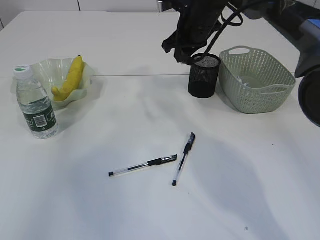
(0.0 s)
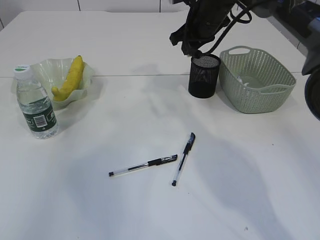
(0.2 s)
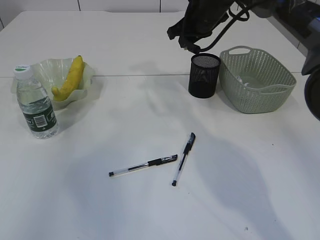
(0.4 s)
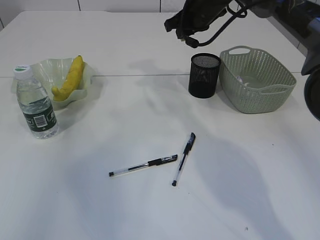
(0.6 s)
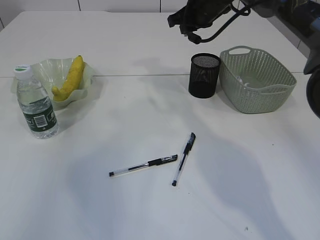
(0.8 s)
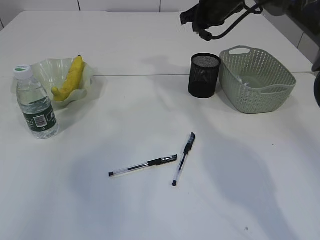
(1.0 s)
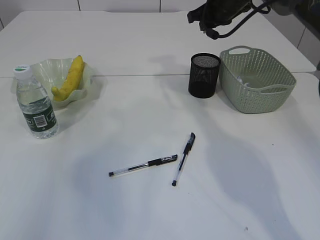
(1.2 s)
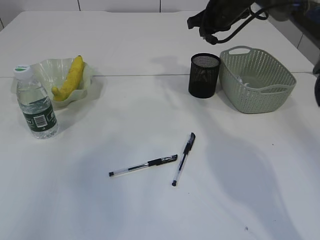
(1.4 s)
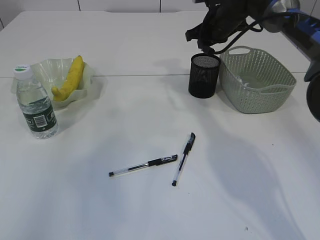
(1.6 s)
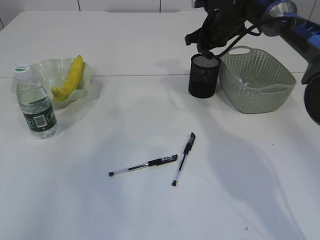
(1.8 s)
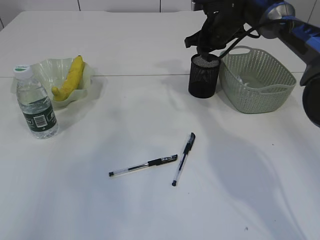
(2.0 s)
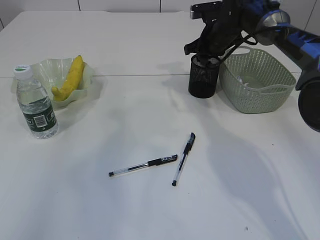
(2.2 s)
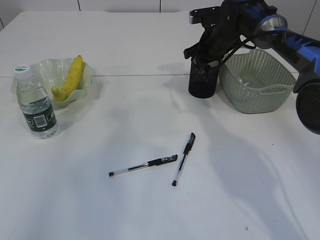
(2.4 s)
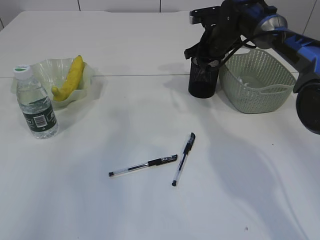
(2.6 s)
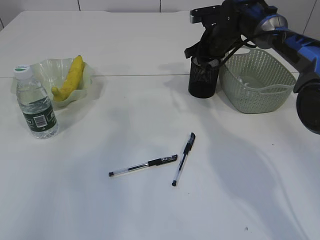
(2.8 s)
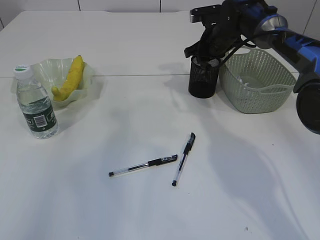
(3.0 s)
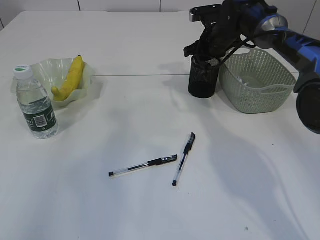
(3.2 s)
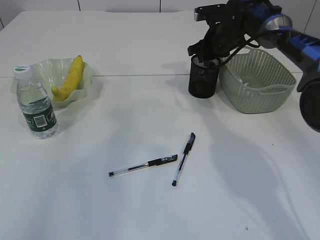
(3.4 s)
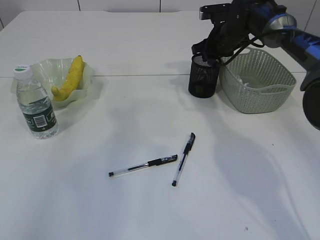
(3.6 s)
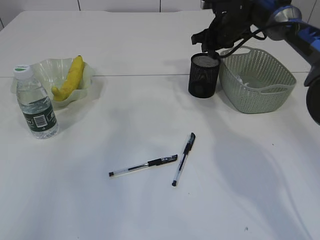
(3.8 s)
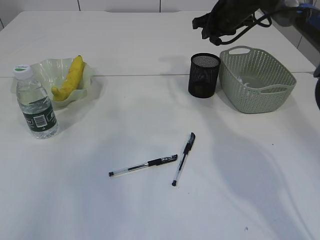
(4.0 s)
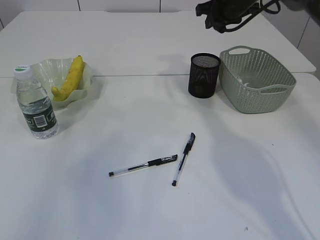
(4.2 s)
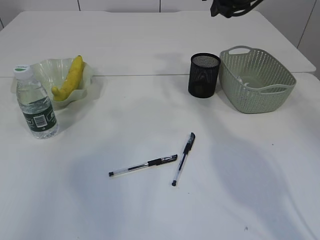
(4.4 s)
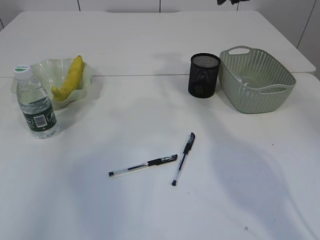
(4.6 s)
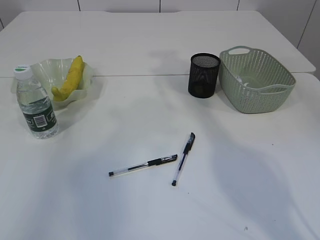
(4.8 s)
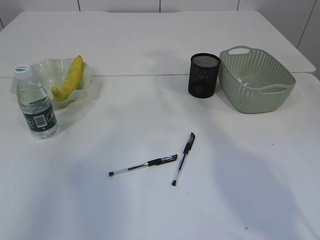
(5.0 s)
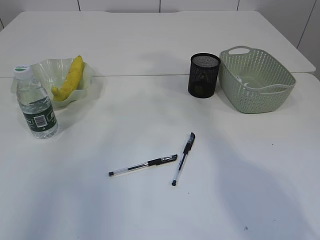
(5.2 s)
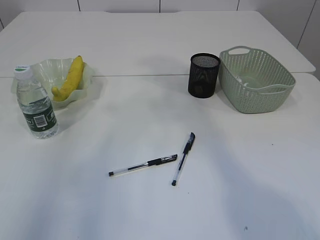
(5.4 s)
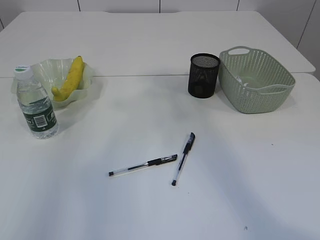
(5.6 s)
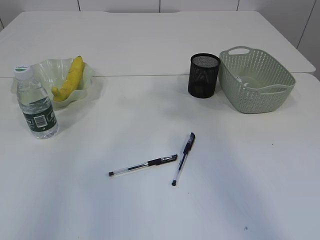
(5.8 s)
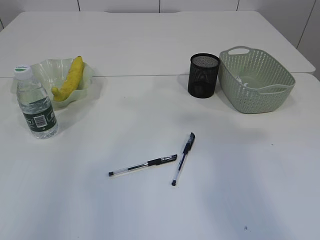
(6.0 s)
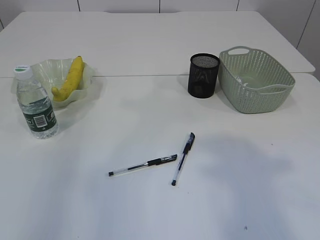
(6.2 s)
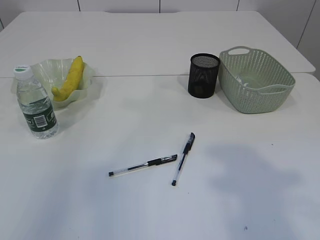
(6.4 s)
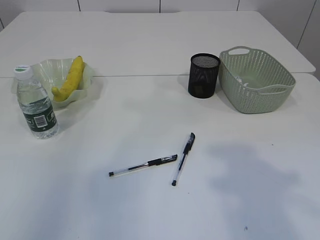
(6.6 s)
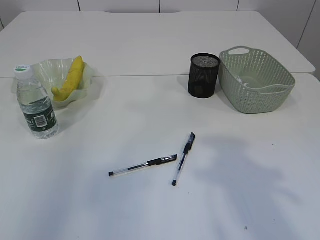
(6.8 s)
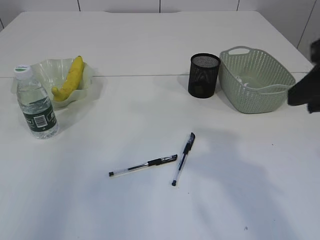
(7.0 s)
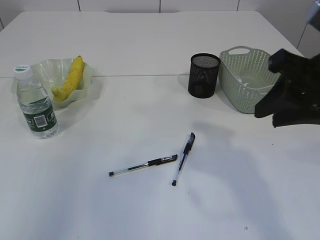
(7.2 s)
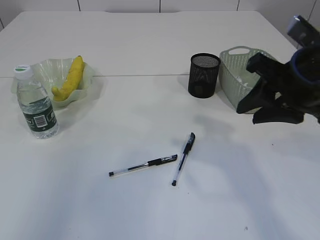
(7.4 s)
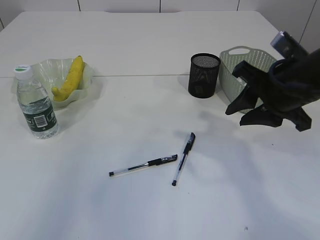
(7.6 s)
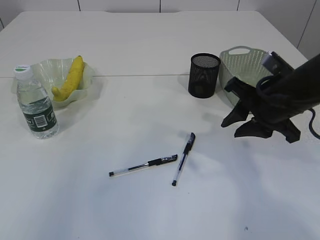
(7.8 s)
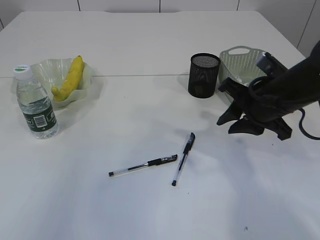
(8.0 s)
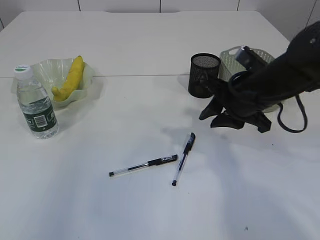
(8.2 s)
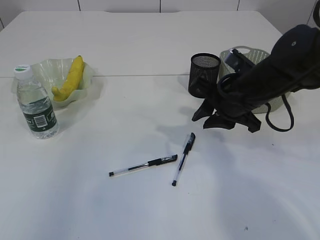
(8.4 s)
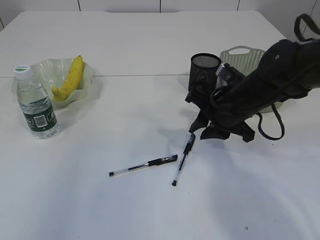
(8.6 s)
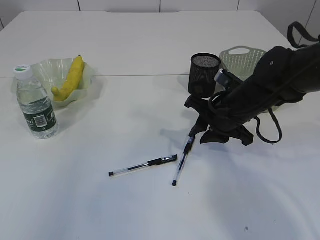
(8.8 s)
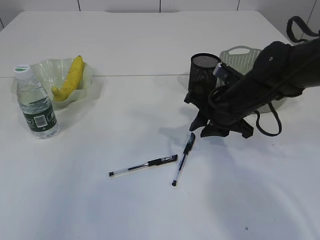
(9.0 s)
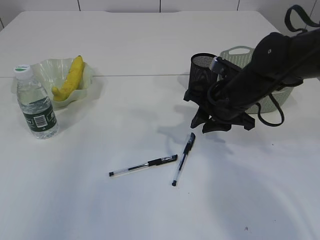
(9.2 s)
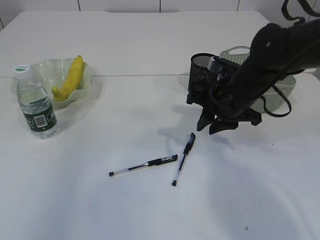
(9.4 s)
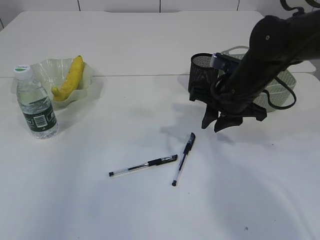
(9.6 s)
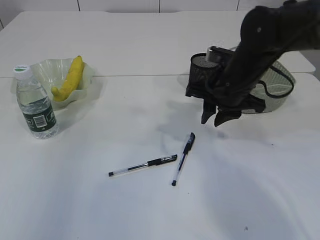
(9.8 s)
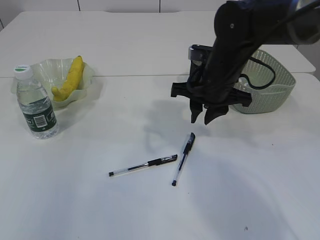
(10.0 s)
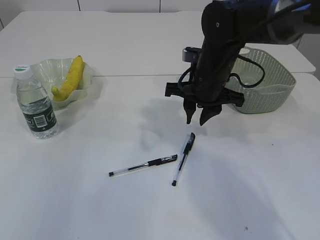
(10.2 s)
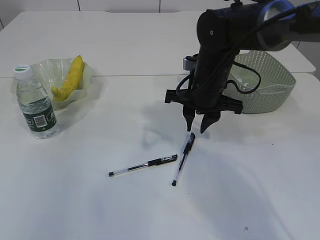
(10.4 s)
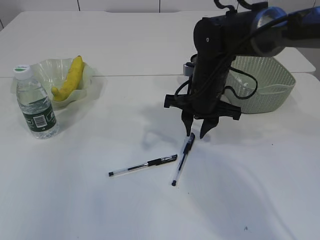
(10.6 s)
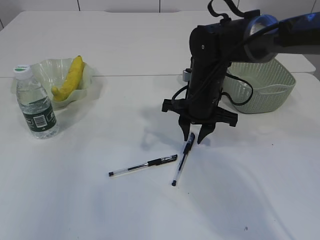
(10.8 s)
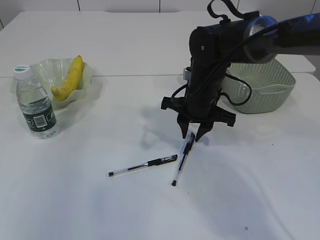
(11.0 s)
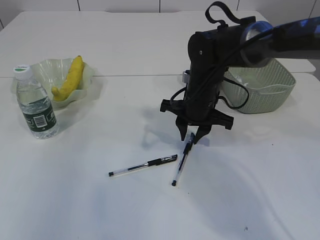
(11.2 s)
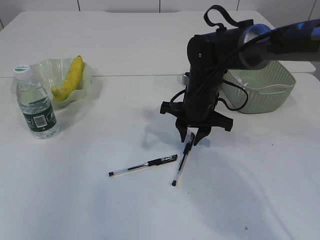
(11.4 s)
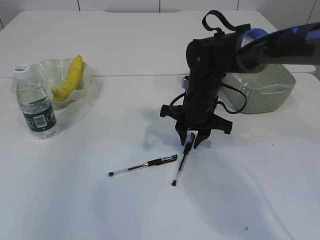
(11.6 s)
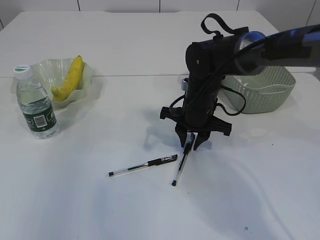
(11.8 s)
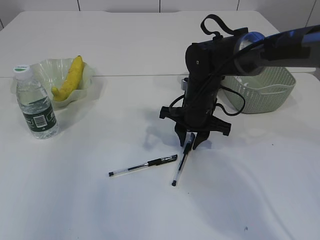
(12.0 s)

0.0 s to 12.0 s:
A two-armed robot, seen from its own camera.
Step, 0.0 to 3.8 s: Place the eraser into the pen holder.
0.0 to 1.6 s: The right gripper travels to the right and forward by roughly 10 cm.
1.6 to 3.0 s: The grippers stay close to where they were, moving slightly.
3.0 to 4.4 s: The right gripper moves upward, about 15 cm.
4.4 to 6.0 s: The right gripper heads backward and upward, covering some 40 cm.
6.0 to 7.6 s: The right gripper goes about 30 cm downward and forward.
7.6 to 9.0 s: The right gripper heads downward, forward and to the left, covering roughly 10 cm.
9.0 to 10.4 s: The right gripper shifts by roughly 5 cm.
10.4 to 12.0 s: The right gripper moves downward, about 5 cm.

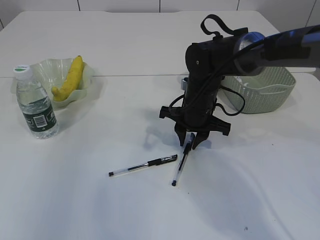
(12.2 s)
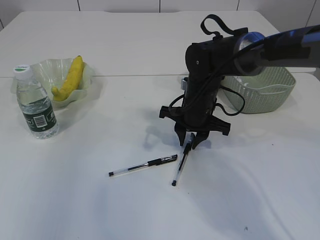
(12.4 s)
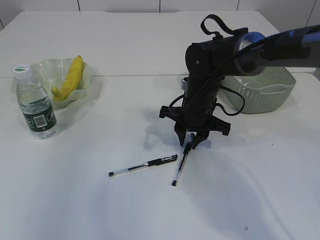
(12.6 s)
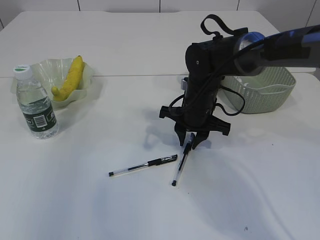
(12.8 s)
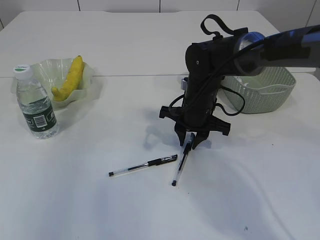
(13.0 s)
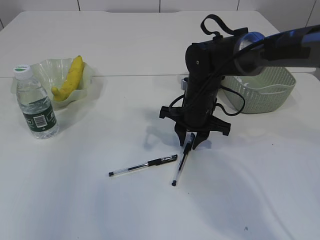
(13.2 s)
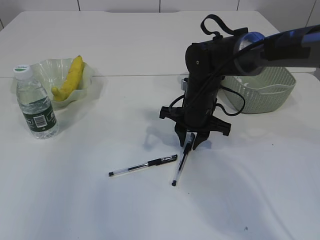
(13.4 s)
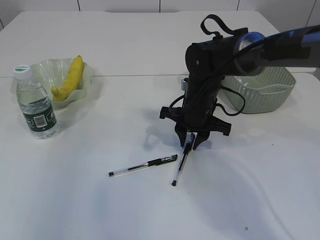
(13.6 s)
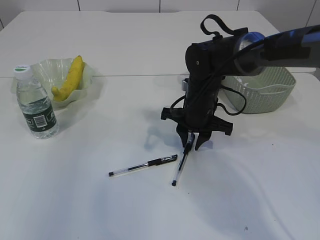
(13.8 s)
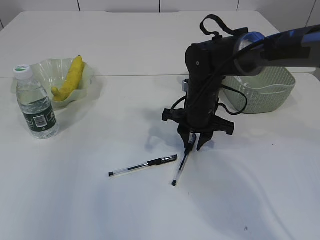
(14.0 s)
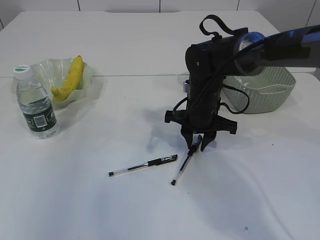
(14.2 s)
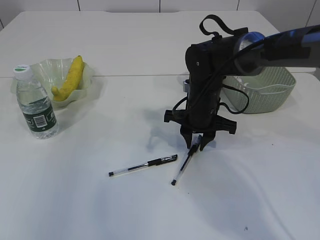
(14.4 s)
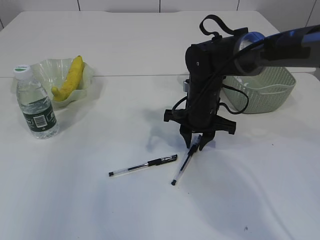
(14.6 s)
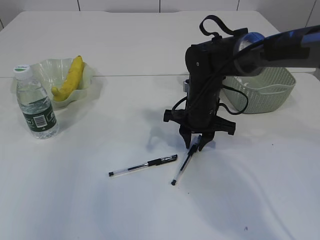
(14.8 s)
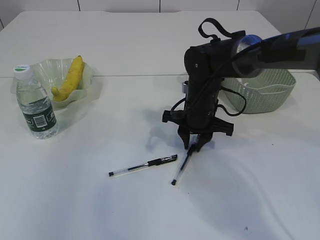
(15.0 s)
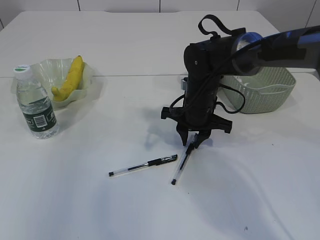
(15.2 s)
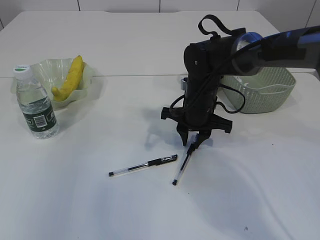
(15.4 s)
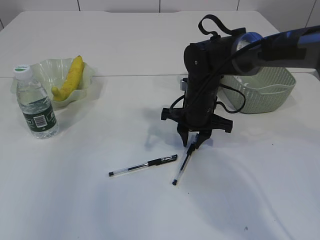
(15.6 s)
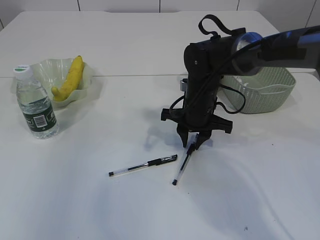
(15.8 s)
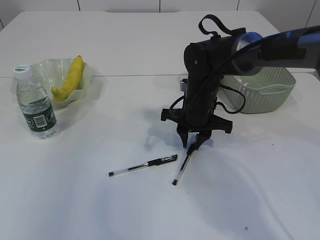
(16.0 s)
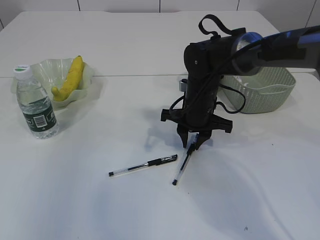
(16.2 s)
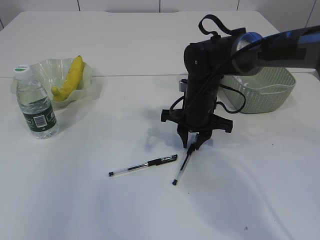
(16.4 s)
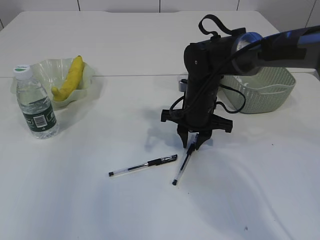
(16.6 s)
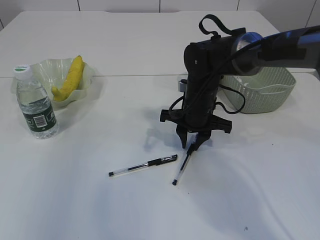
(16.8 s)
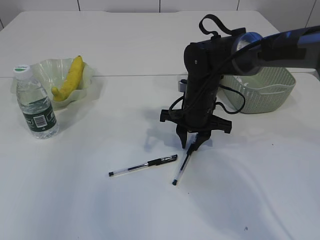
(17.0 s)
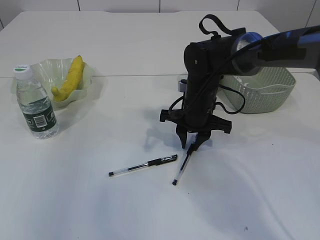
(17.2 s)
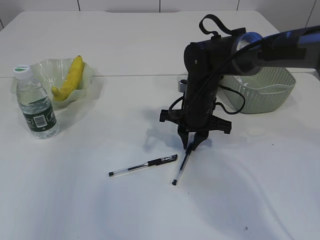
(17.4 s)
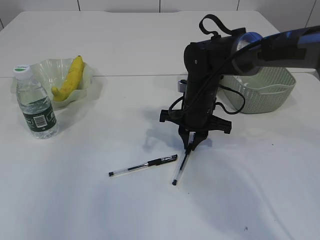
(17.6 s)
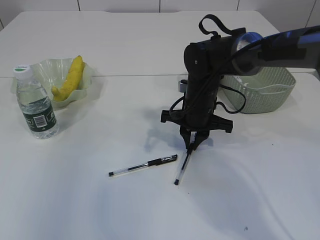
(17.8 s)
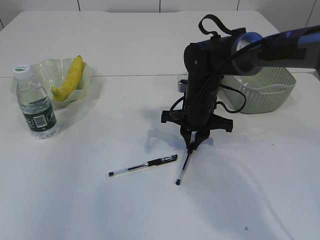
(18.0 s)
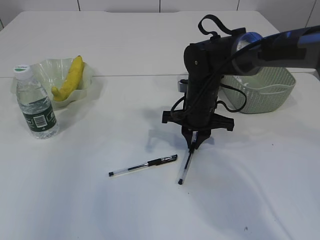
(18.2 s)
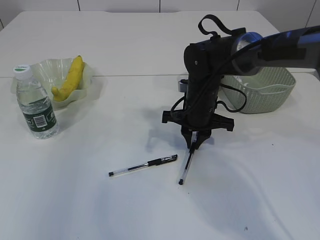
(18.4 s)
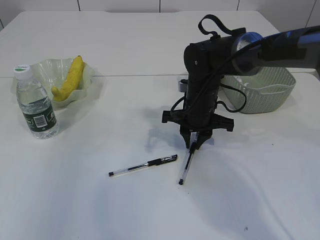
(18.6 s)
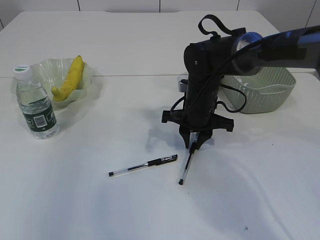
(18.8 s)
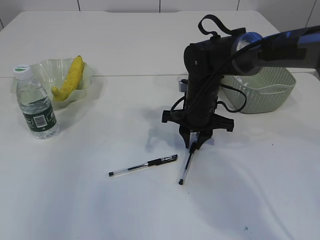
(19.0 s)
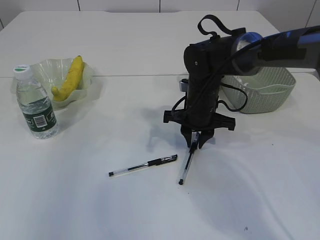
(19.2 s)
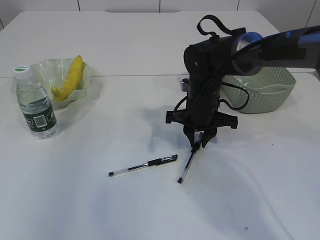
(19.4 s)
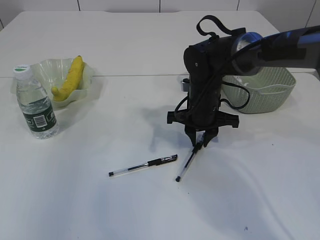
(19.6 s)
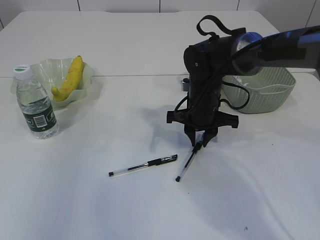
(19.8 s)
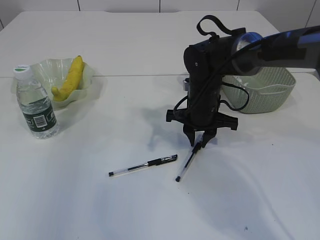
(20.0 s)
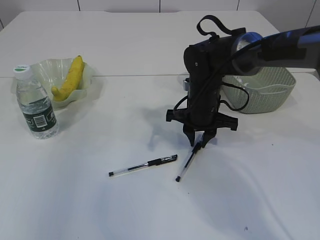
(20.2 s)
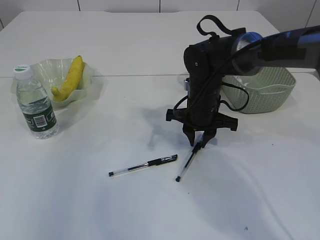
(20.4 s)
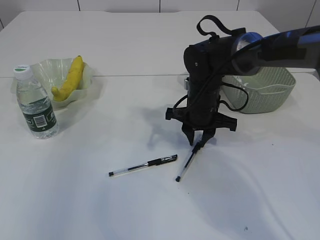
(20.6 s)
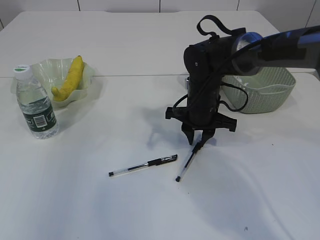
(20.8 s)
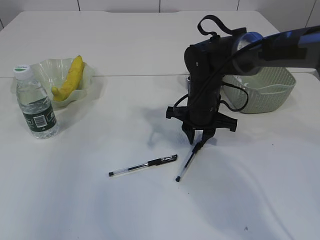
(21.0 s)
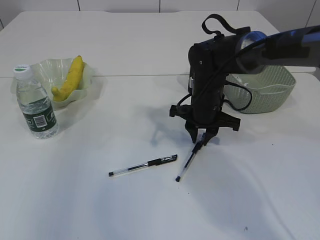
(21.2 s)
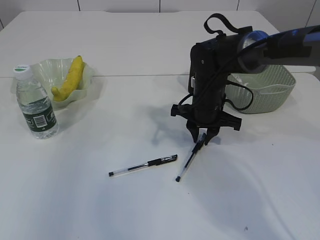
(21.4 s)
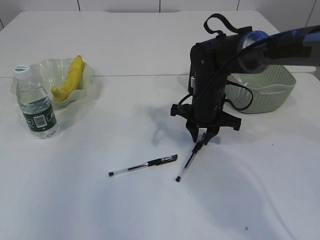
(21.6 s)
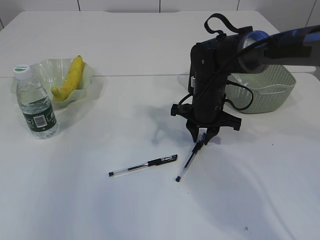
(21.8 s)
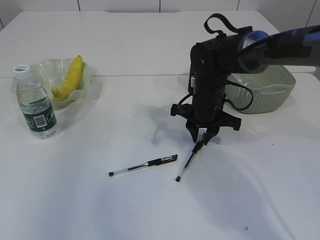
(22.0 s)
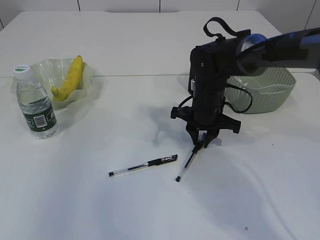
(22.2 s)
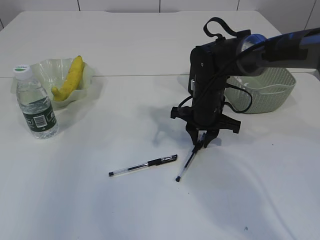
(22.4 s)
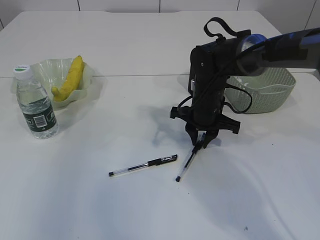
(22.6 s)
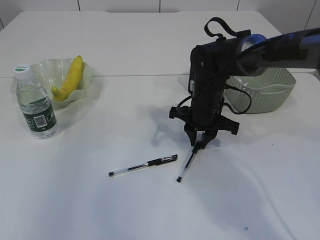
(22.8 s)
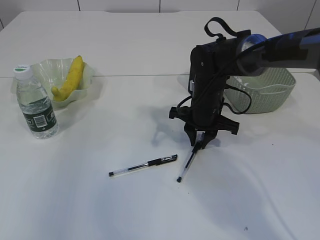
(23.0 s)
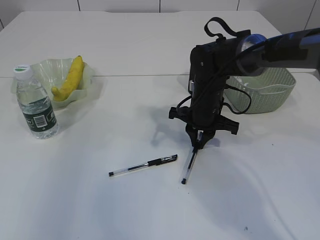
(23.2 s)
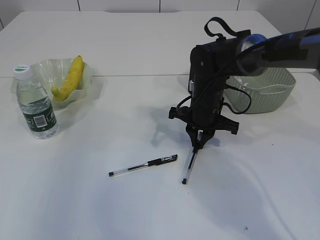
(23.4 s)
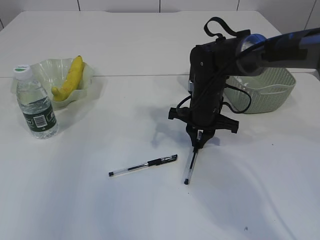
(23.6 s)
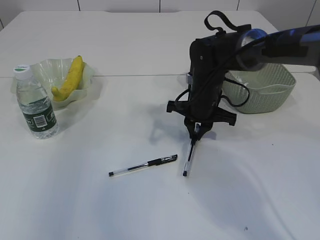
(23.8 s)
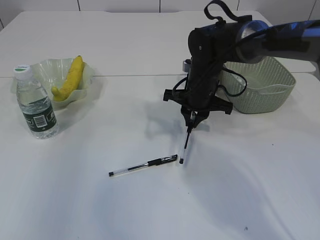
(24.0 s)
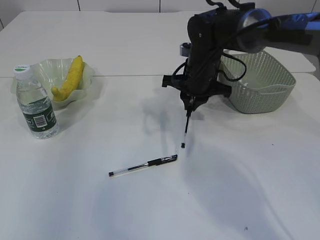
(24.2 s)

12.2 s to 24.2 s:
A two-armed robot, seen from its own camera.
Step, 12.2 to 24.0 s: Pick up the pen with right arm.
12.2 to 13.8 s: Both grippers stay about where they are.
13.8 to 15.2 s: Both grippers stay put.
15.2 to 16.6 s: The two grippers keep their place.
16.6 to 18.2 s: Neither gripper changes place.
18.2 to 19.8 s: Neither gripper changes place.
19.8 to 21.2 s: The grippers make only small movements.
21.2 to 22.6 s: Both grippers stay about where they are.
22.6 to 24.2 s: The right gripper goes some 5 cm upward.
